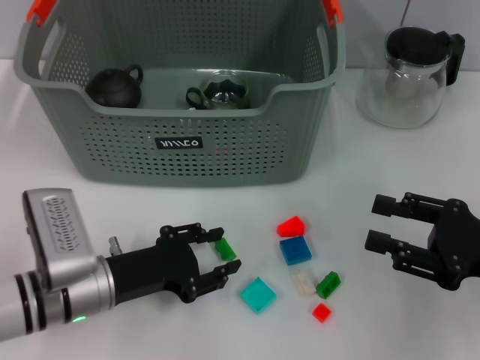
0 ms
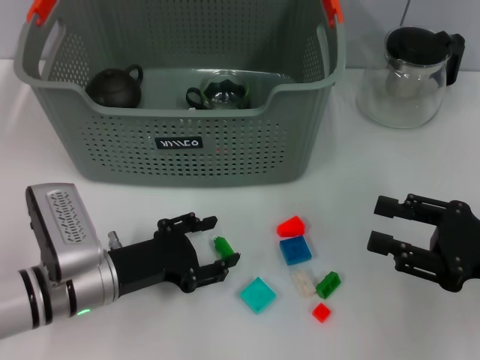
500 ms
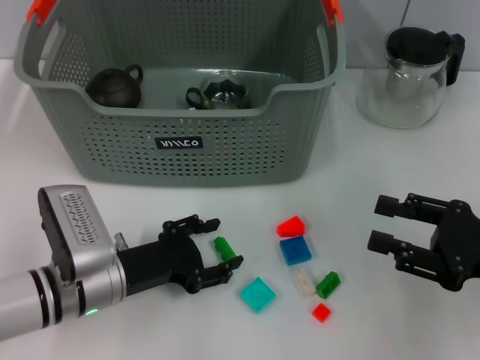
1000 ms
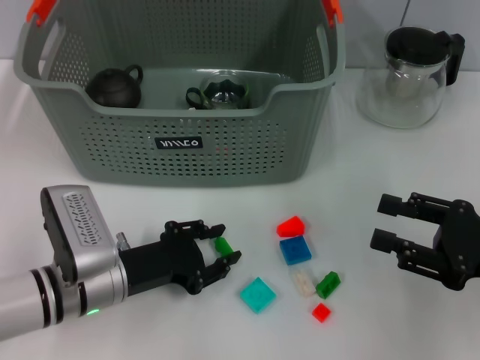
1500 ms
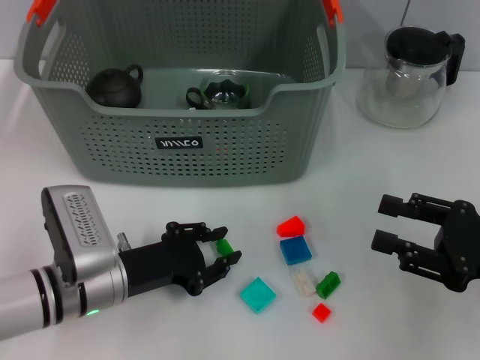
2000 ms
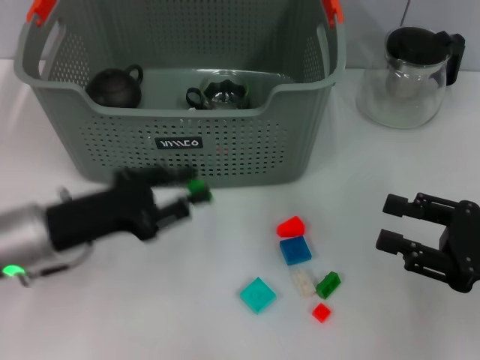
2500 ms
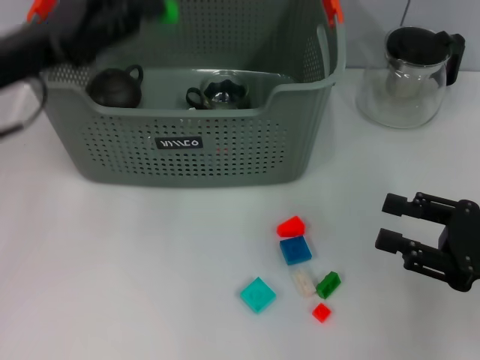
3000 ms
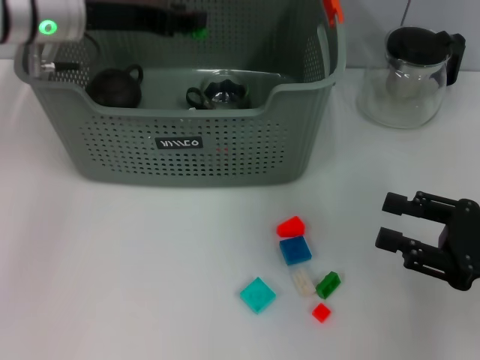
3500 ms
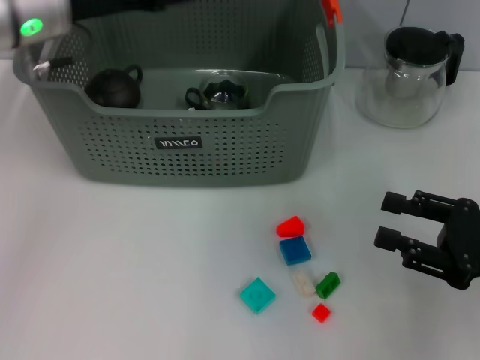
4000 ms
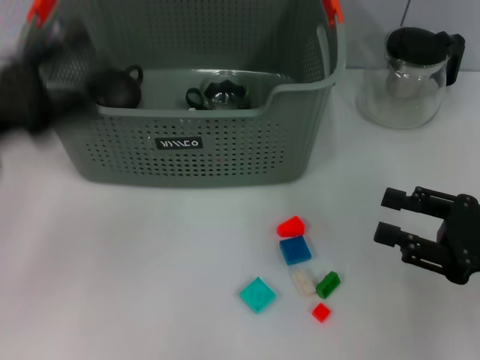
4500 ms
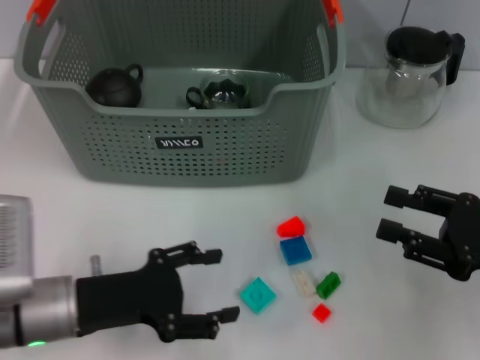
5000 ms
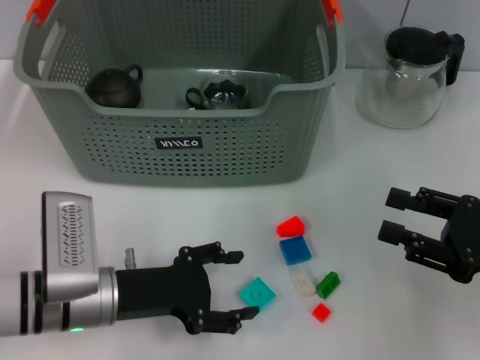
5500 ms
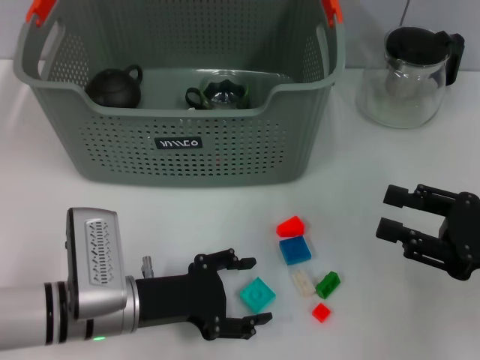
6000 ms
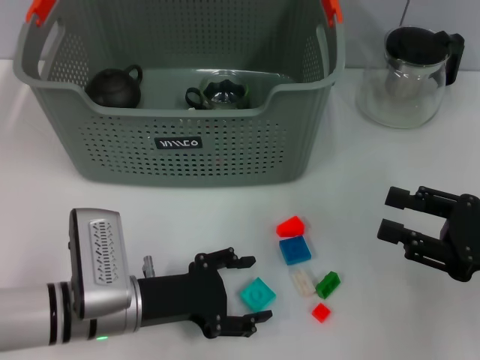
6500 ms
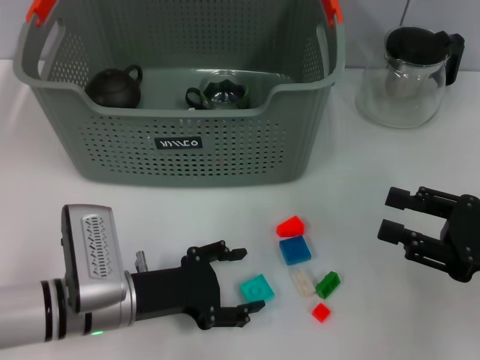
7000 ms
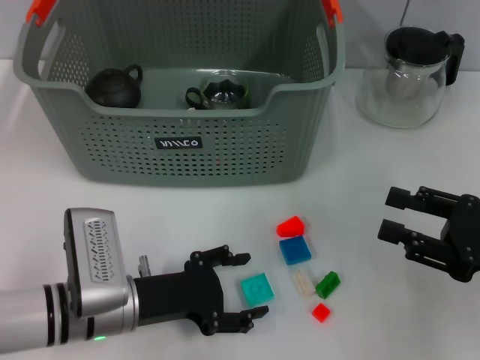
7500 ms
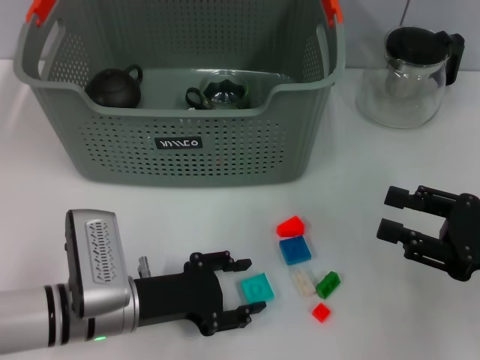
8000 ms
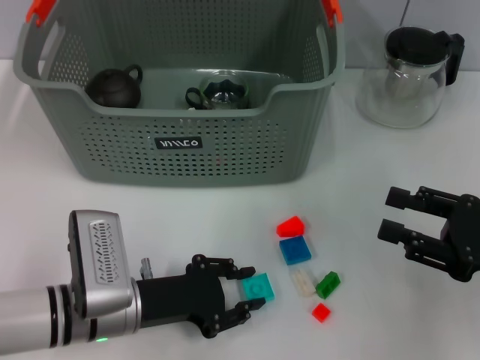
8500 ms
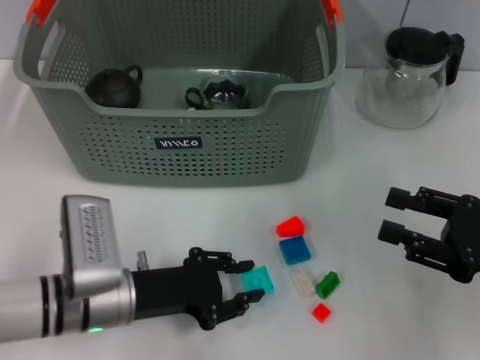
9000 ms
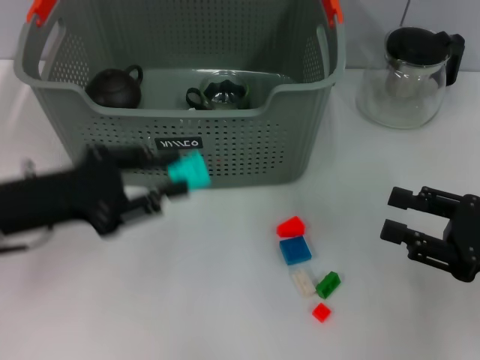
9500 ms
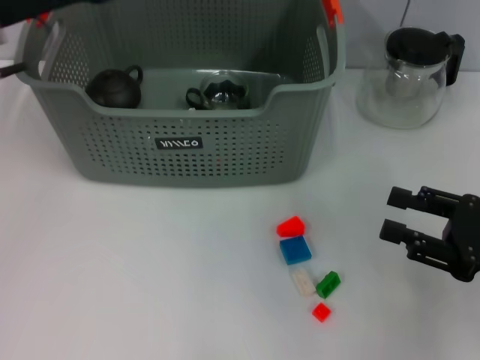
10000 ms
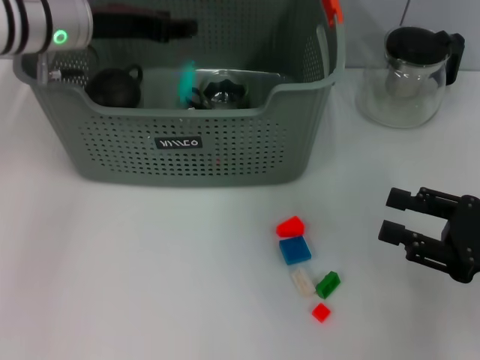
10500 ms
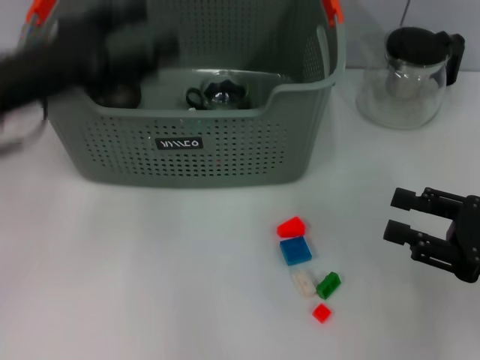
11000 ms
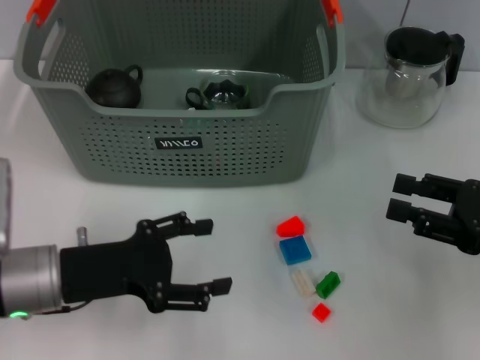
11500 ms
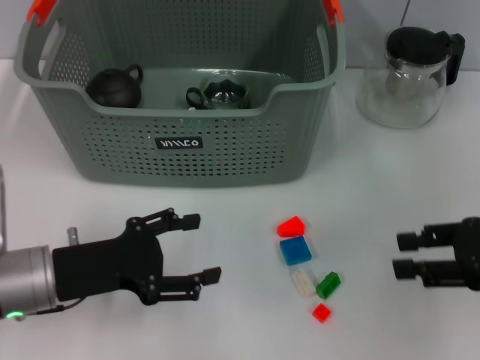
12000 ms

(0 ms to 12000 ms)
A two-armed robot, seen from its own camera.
Task of the whole recording: pick up the teacup on the table and place it into the storage bin, pick up the block on the table and place it into the storage bin.
Step, 2000 ms - 3500 ms: Place the green block in the storage box with left gripper.
Step, 4500 ms - 8500 ms: Grasp the light blue block with left gripper.
Step, 9000 ms - 10500 ms: Place the light blue block in the storage box with left gripper.
0 ms - 2000 ms: The grippers make only small movements.
2000 ms - 4000 ms: The left gripper moves upward and forward, roughly 25 cm.
4000 ms - 6000 ms: The left gripper is displaced downward and backward by roughly 25 cm.
6000 ms - 8000 ms: Both grippers stay put.
8000 ms - 10000 ms: The left gripper is displaced upward and forward by roughly 25 cm, and closes.
10000 ms - 12000 ms: The left gripper travels downward and backward by about 20 cm, and opens its fingers.

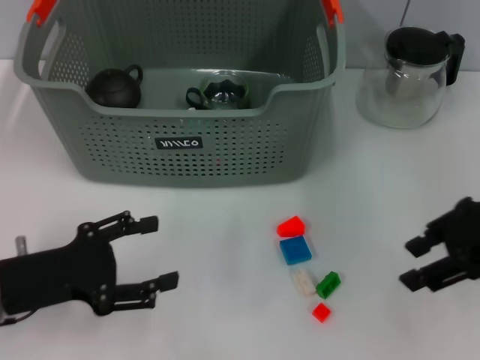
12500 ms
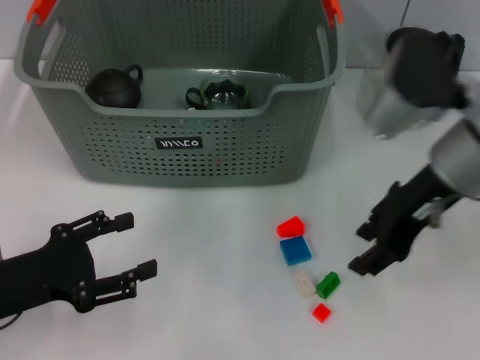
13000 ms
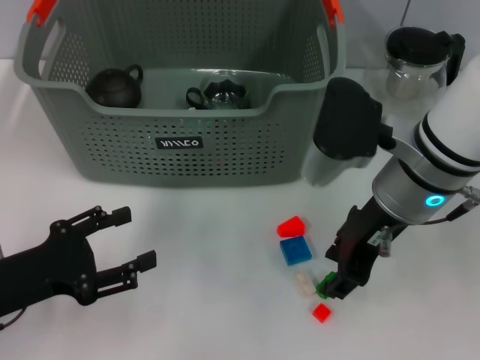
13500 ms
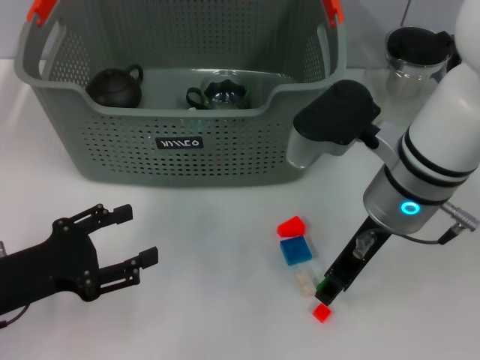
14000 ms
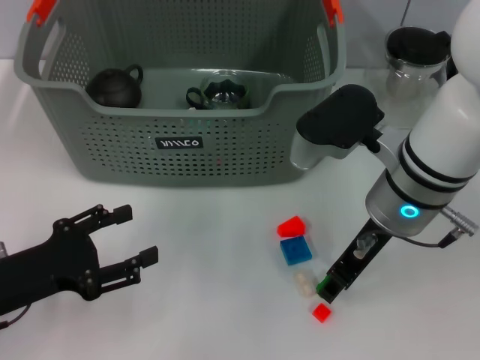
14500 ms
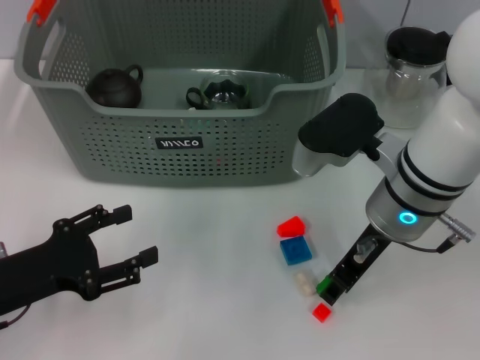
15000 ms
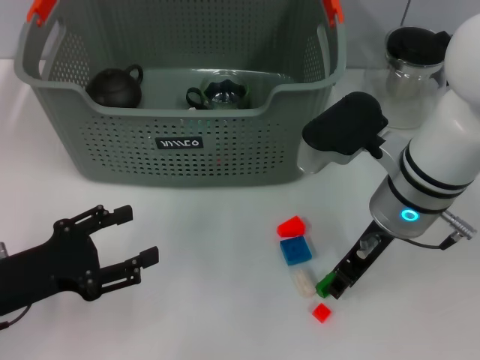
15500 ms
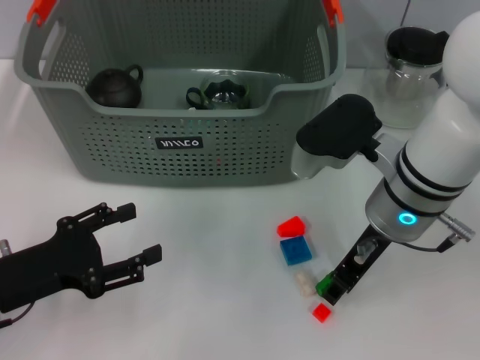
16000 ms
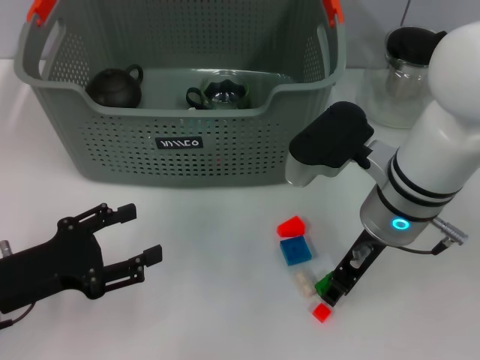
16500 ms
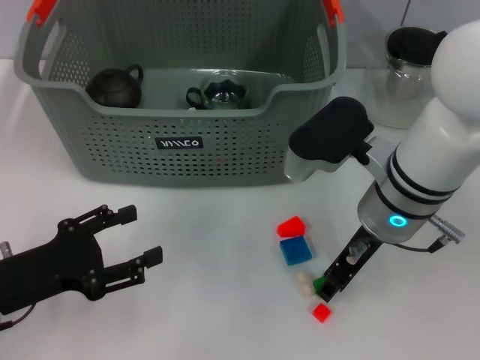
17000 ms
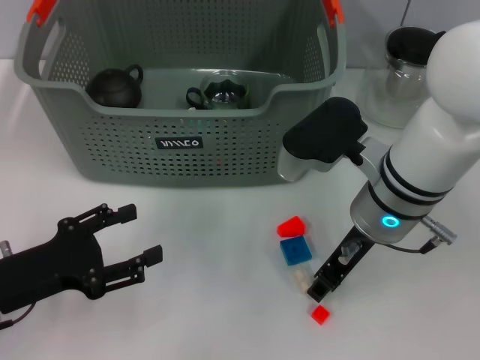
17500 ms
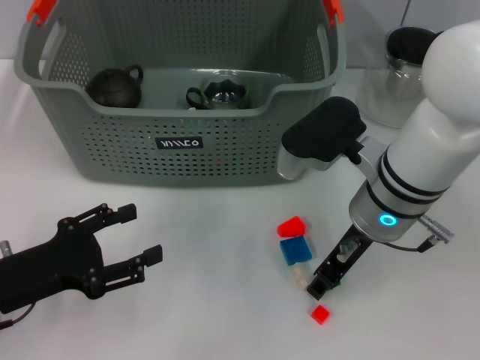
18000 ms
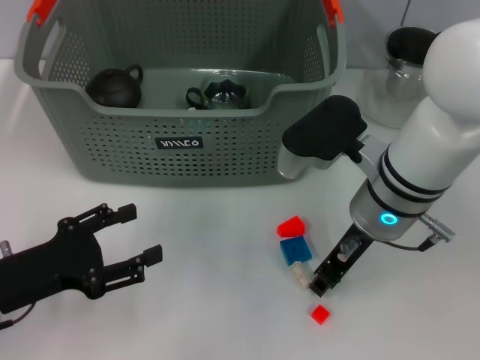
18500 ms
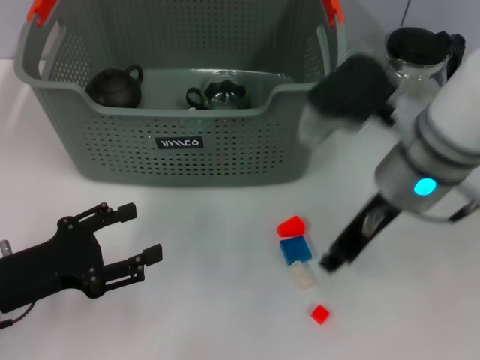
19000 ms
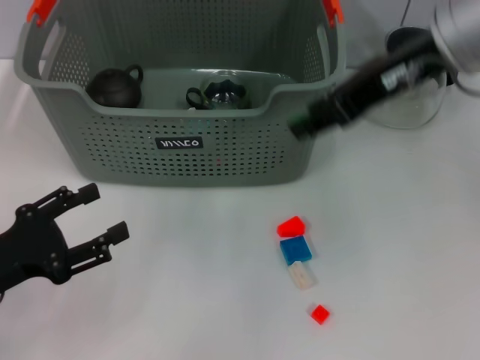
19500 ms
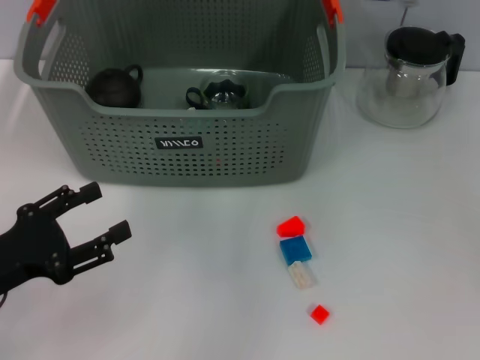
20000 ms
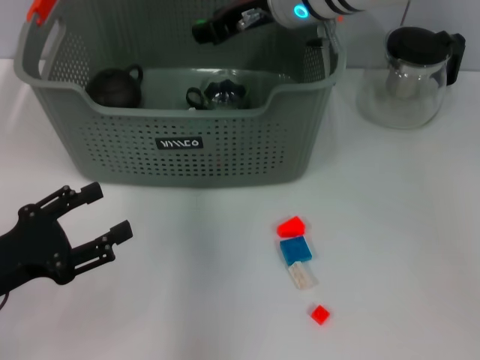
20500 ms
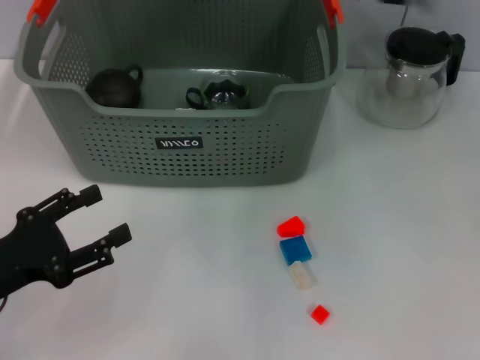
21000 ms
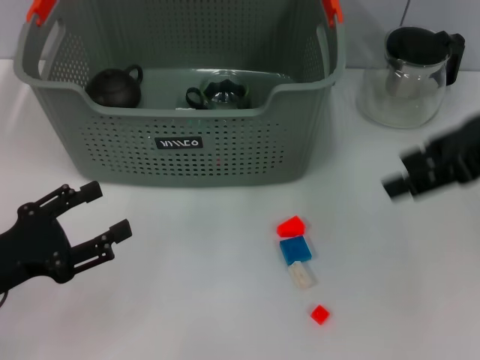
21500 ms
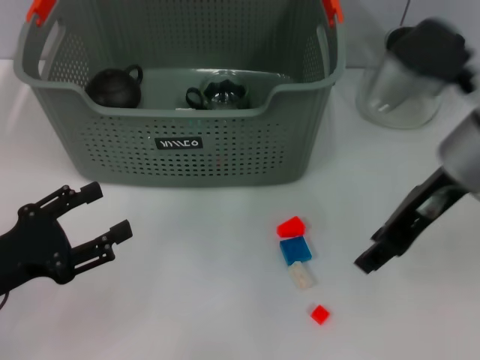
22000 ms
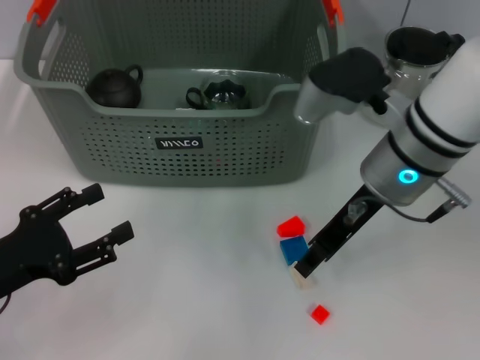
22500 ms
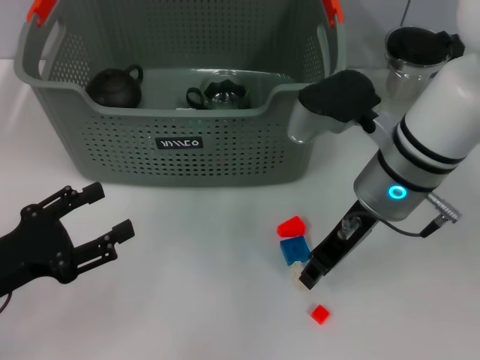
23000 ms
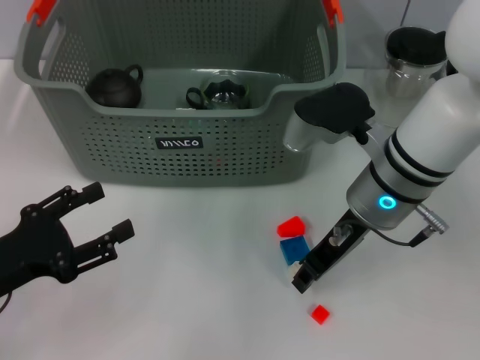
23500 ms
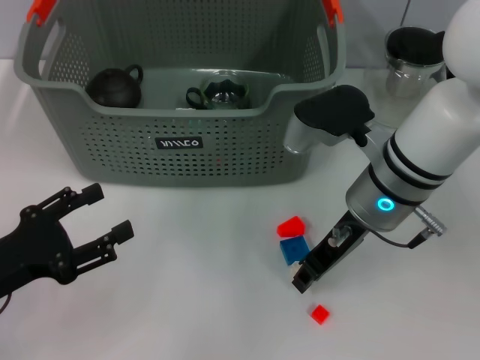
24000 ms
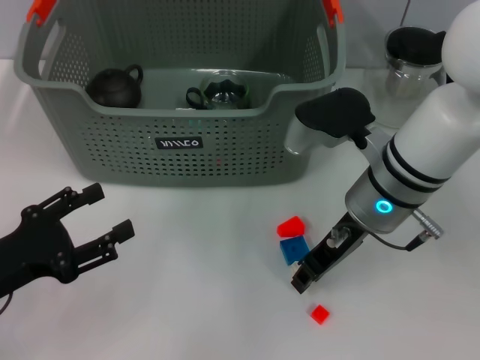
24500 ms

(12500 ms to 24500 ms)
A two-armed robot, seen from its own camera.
Task of the whole recording: pick up the teacup on the table and place it into the storage bin, pick up the block on the table and place it into the storage bin.
Step, 12500 ms - 18500 ms: Grasp the green block with right gripper.
Step, 19000 ms - 20500 ms: Place the green block in the storage box with right gripper.
12500 ms - 14500 ms: The right gripper goes some 15 cm to the left.
14500 ms - 16500 ms: There are only small adjustments of the grippers.
16500 ms - 18500 ms: Both grippers stay put.
18500 ms - 20500 ms: The right gripper moves forward, upward and to the left, some 15 cm.
20500 ms - 22500 ms: The right gripper travels backward, to the right and downward by some 15 cm.
22500 ms - 24500 ms: The grippers make only small movements.

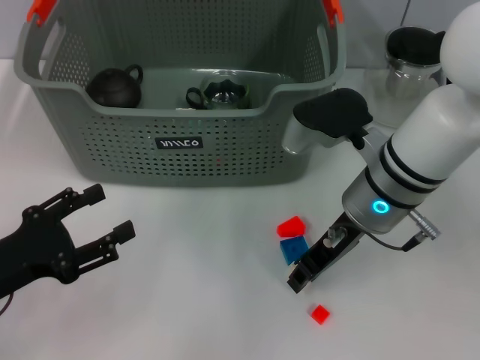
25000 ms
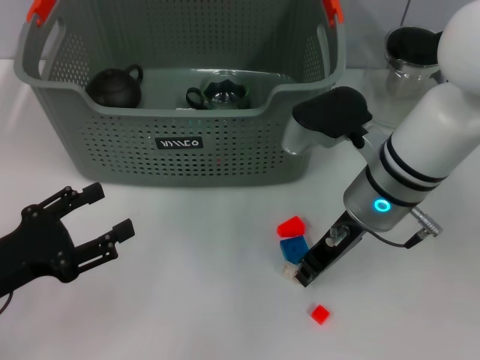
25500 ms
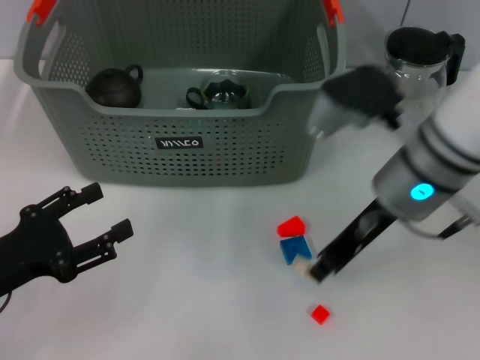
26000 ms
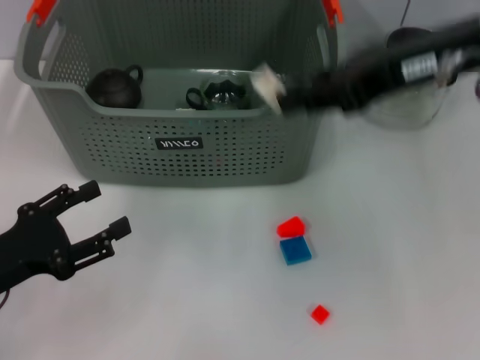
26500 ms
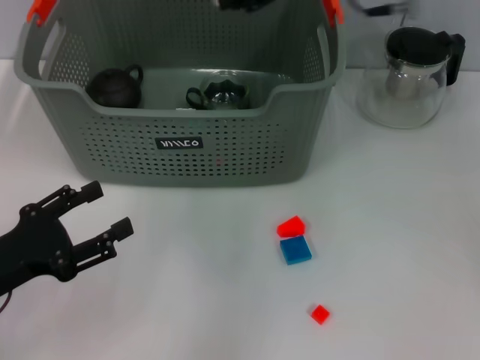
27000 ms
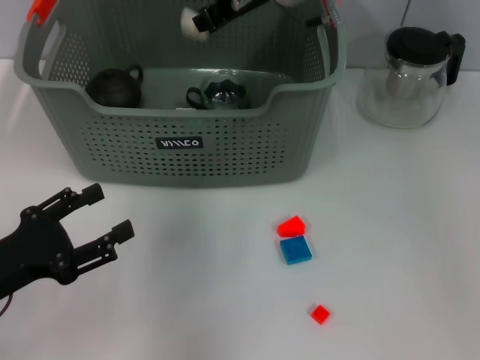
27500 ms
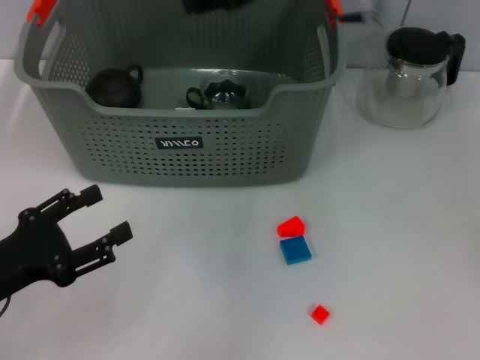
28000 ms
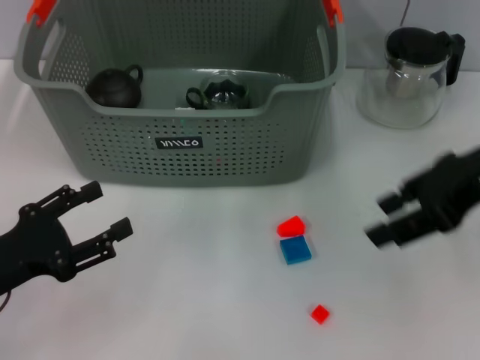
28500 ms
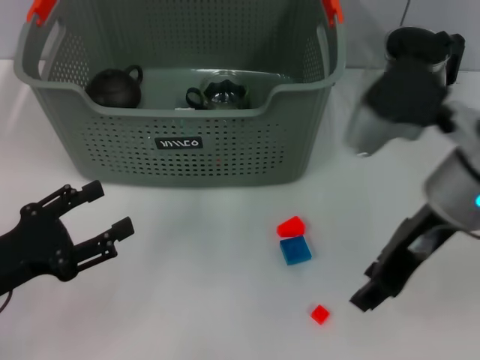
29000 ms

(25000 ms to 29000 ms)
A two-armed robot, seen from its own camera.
Task of the whole recording: pick up the teacup on the table and place it into the storage bin, pick up the block on the table and place it into the storage bin.
Step, 26000 ms - 27500 ms: Place the white block in the storage box with right gripper.
25000 ms - 27000 ms: The right gripper shifts roughly 20 cm upward and forward.
27000 ms - 29000 ms: The right gripper moves left and right over roughly 20 cm, changing direction 2 times, and opens its fingers.
